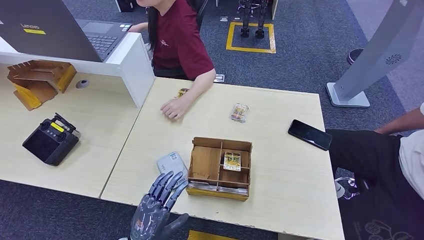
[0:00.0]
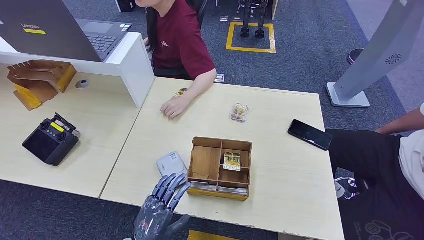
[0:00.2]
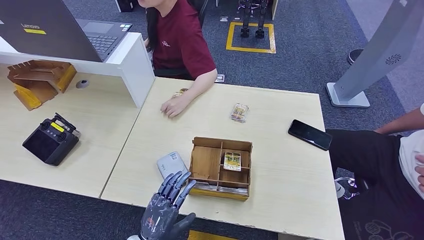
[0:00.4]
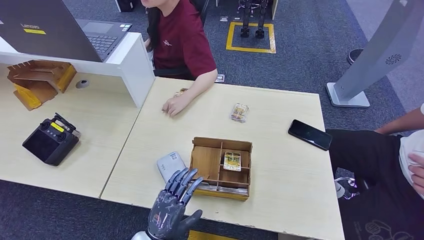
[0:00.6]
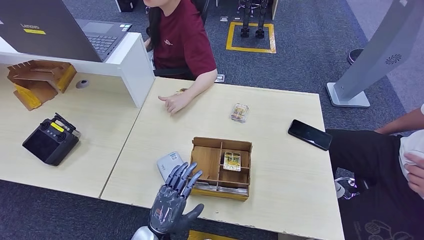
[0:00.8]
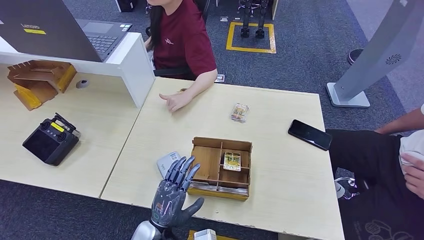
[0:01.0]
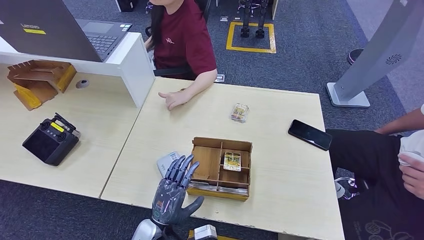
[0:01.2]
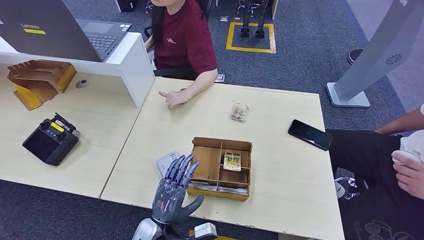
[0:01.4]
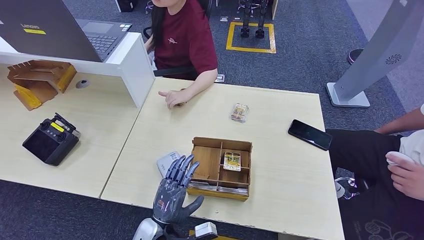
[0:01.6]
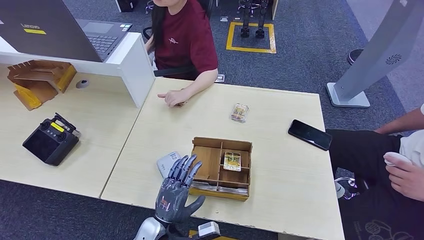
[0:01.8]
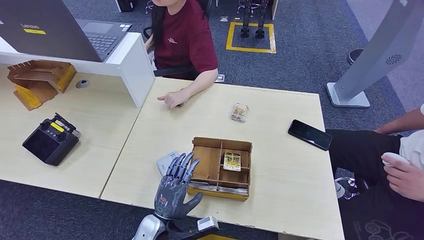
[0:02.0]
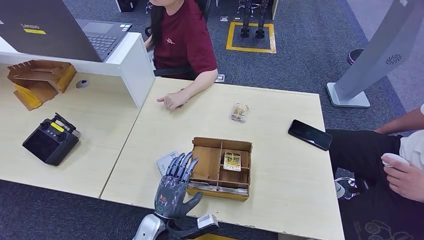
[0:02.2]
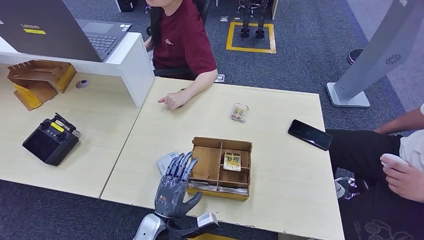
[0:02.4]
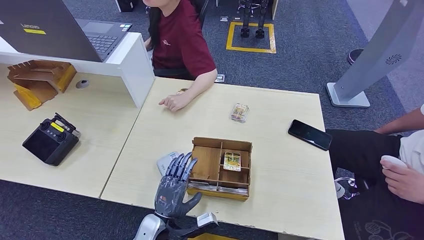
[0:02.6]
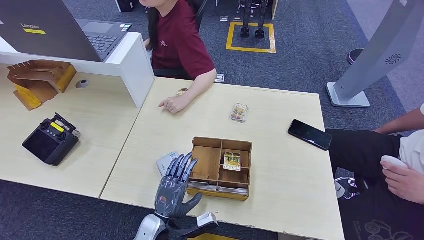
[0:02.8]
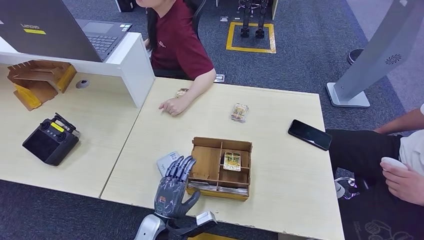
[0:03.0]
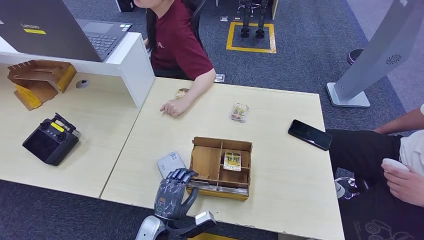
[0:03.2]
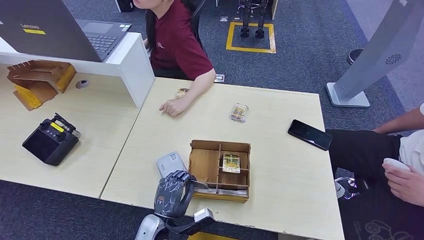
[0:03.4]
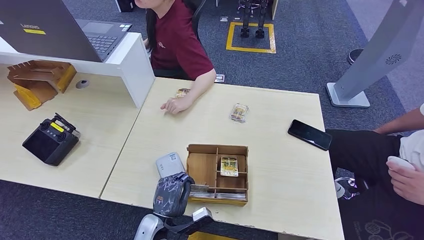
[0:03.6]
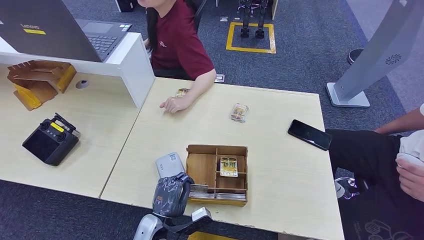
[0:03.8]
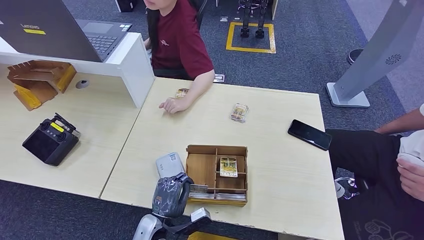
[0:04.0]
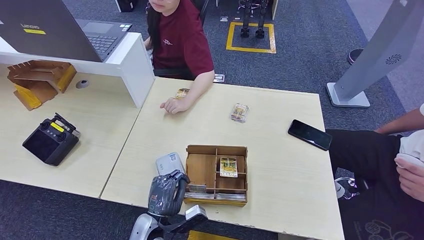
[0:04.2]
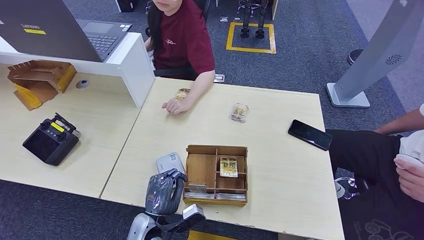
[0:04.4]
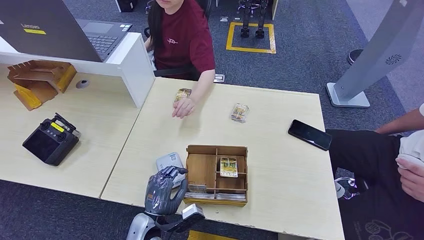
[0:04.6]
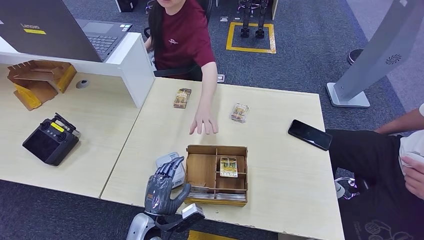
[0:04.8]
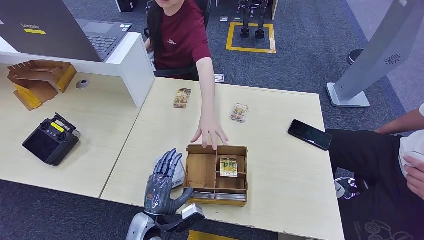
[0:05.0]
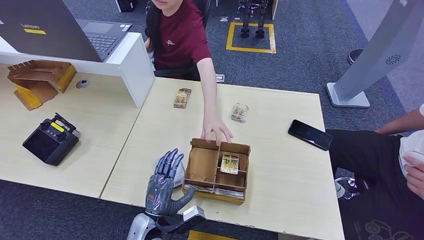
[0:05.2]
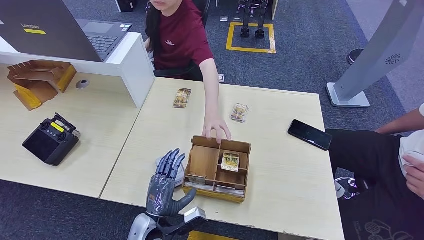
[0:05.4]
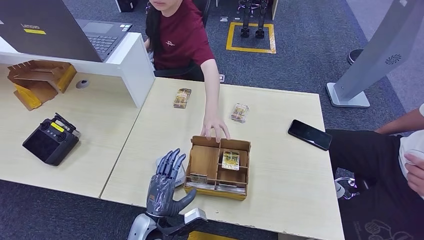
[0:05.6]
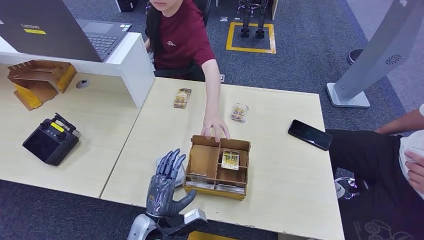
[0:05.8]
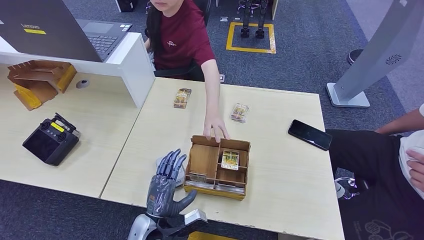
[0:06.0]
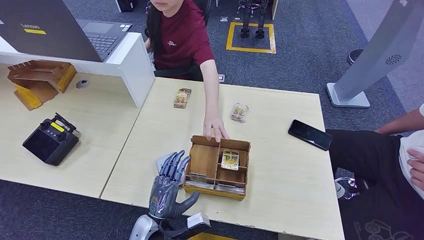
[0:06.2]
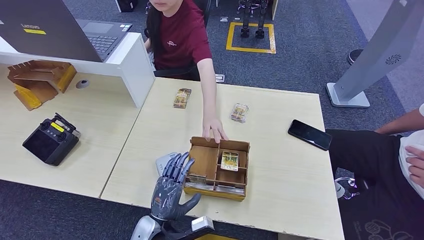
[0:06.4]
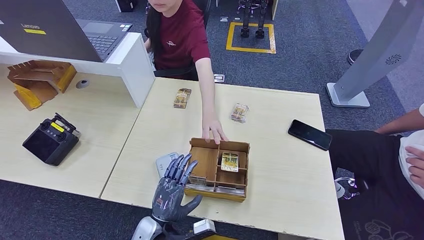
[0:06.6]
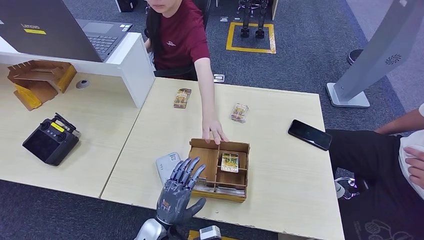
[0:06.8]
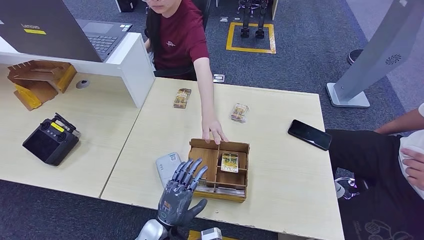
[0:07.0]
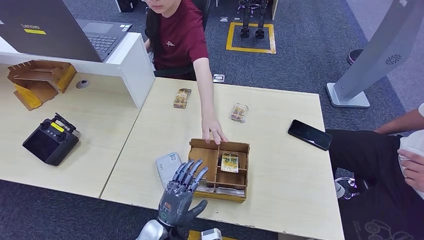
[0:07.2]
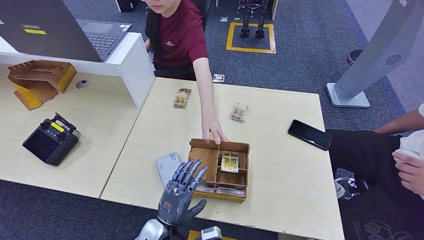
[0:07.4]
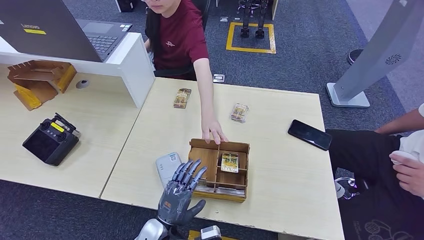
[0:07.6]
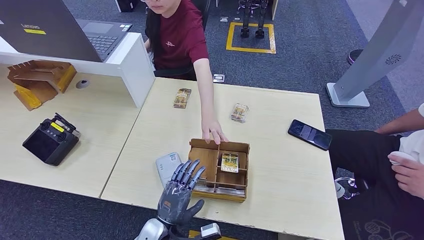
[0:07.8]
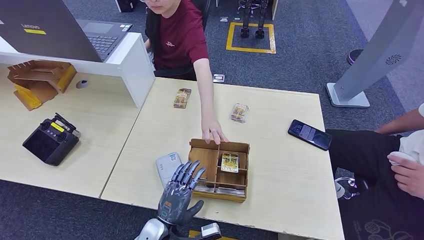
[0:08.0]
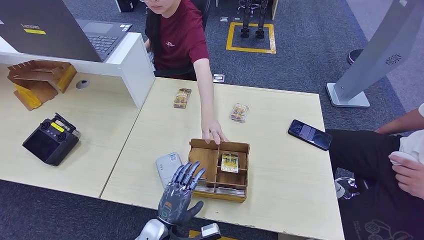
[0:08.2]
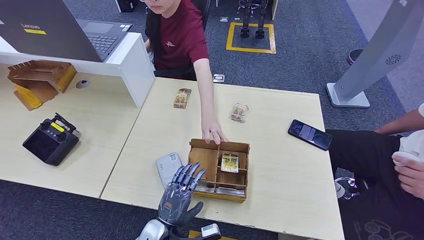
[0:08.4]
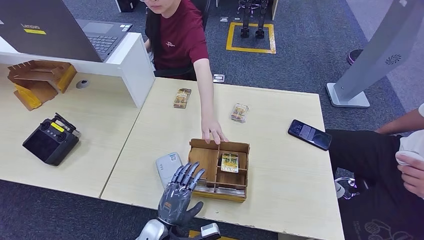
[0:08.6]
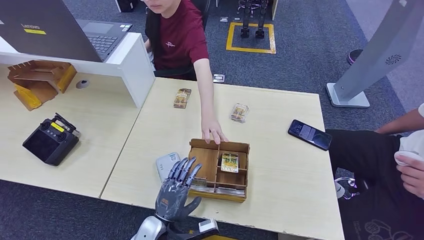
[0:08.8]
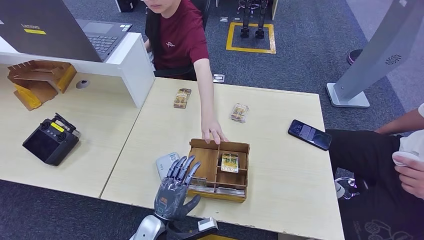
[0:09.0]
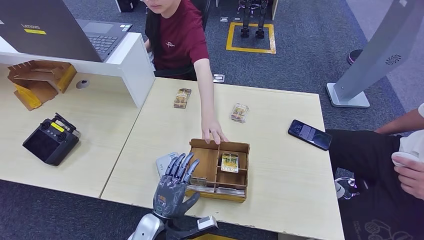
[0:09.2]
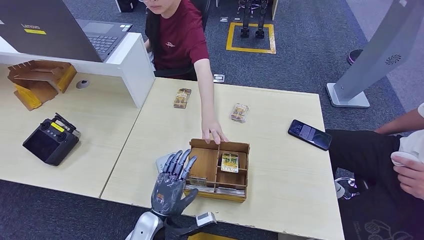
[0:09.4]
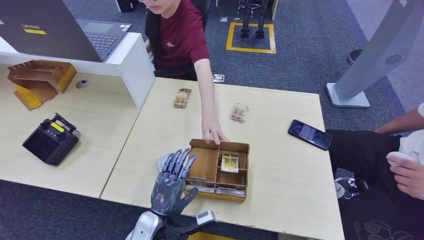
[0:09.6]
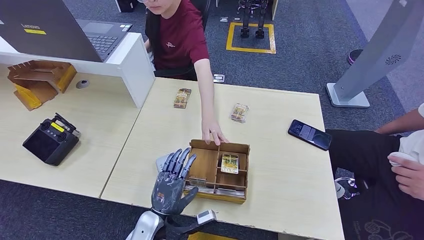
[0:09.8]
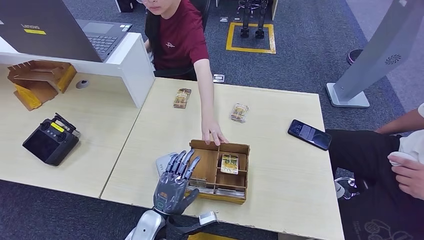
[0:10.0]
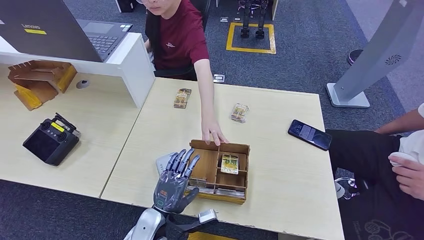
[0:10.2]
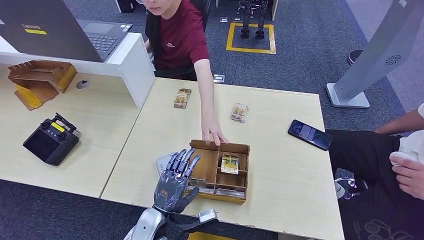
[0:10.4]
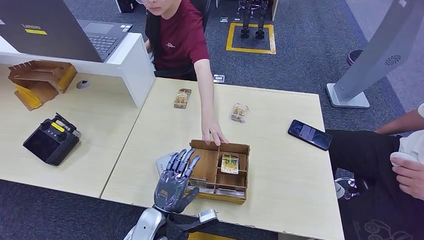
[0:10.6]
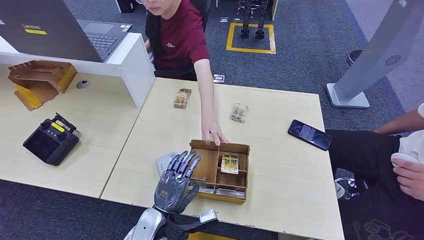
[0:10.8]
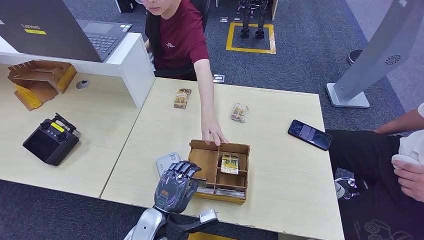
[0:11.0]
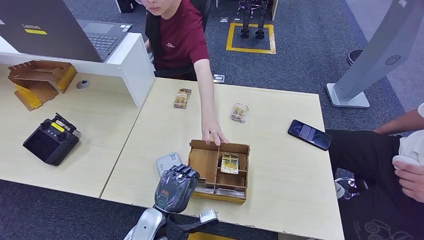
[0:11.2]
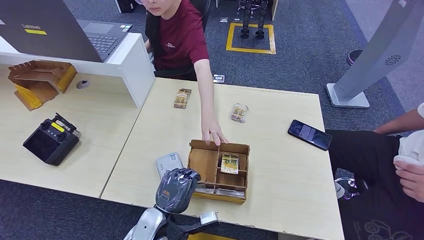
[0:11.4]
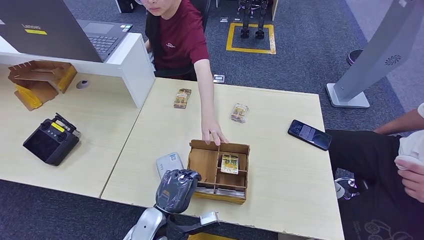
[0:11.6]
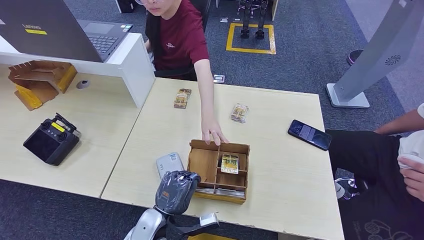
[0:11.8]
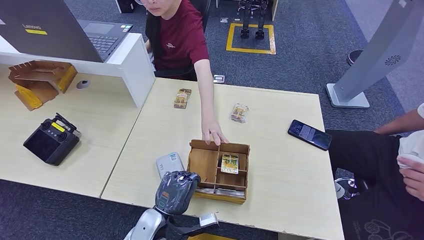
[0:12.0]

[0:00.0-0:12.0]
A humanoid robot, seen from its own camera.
0:00.0 to 0:01.6: The left hand is displaced forward by approximately 5 cm.
0:01.6 to 0:10.4: The hands stay close to where they were, moving slightly.
0:10.4 to 0:12.0: Both hands stay put.

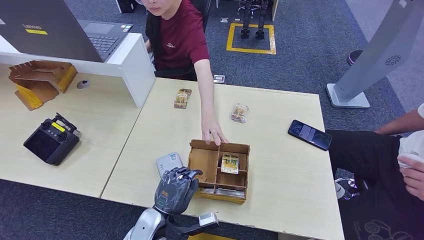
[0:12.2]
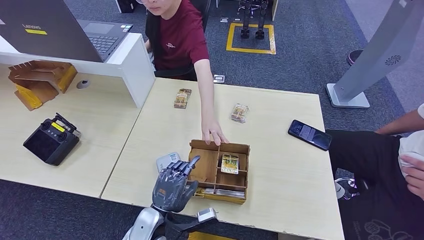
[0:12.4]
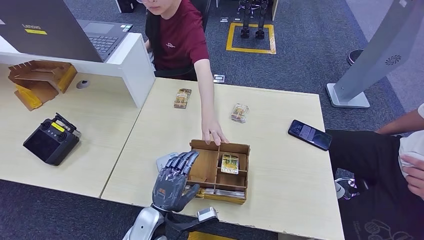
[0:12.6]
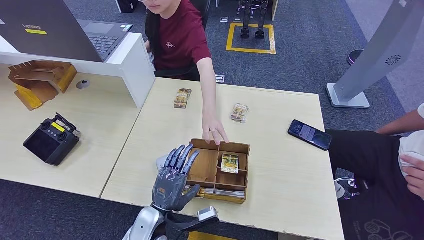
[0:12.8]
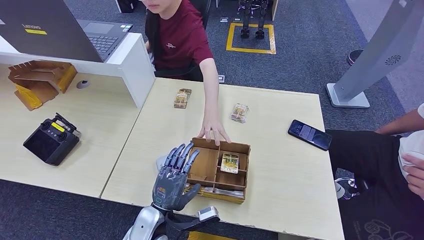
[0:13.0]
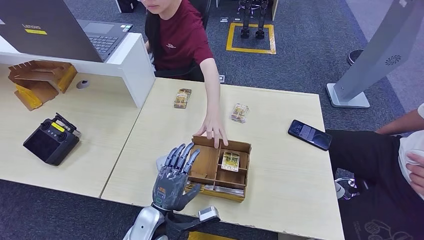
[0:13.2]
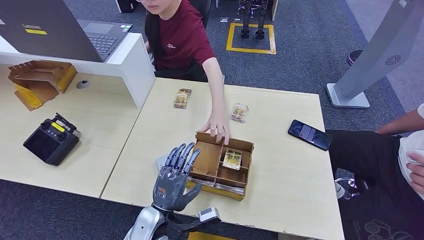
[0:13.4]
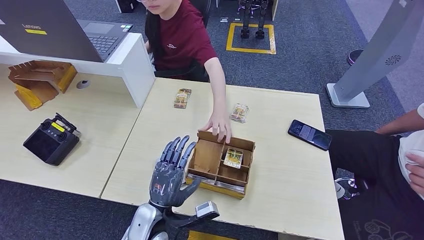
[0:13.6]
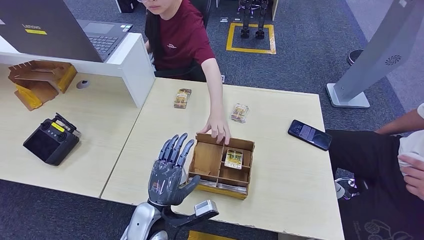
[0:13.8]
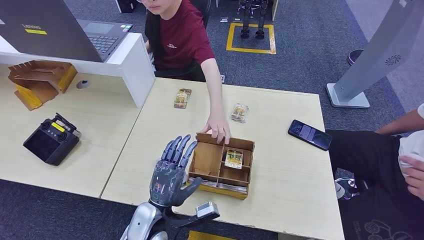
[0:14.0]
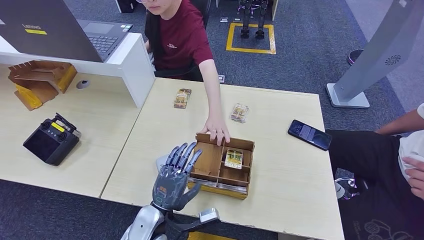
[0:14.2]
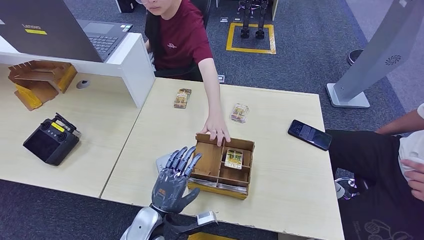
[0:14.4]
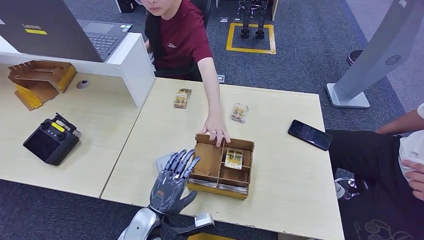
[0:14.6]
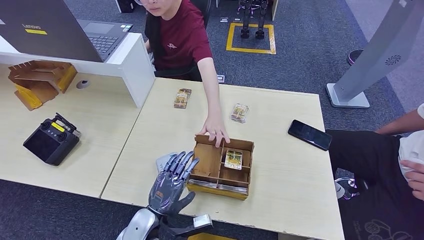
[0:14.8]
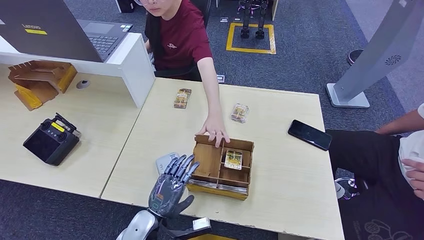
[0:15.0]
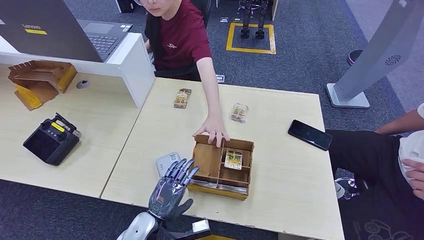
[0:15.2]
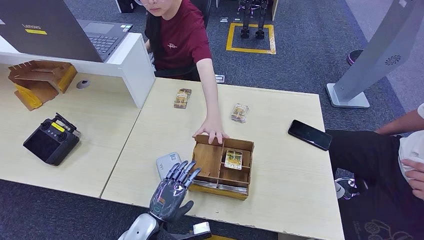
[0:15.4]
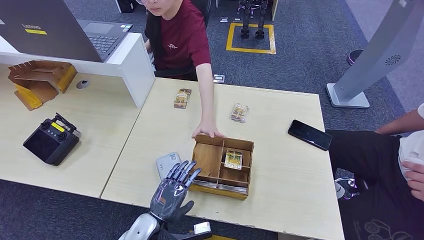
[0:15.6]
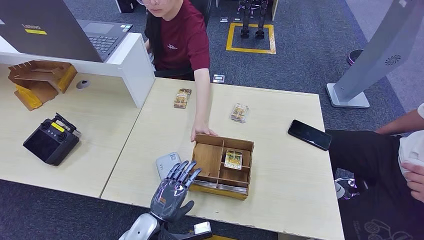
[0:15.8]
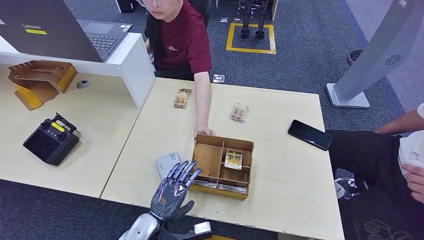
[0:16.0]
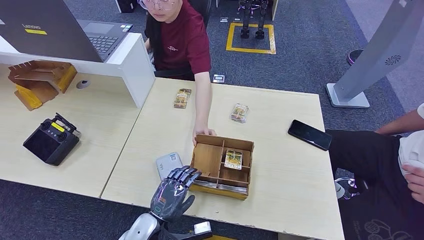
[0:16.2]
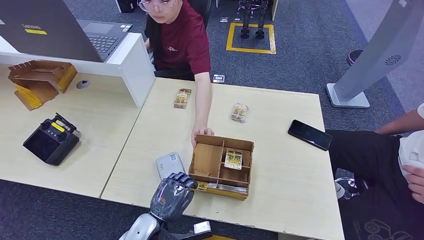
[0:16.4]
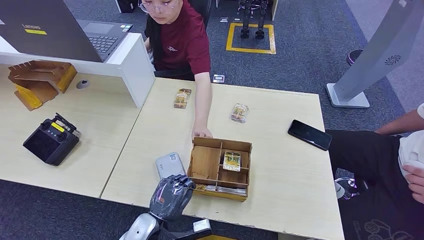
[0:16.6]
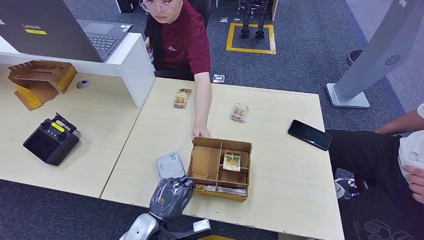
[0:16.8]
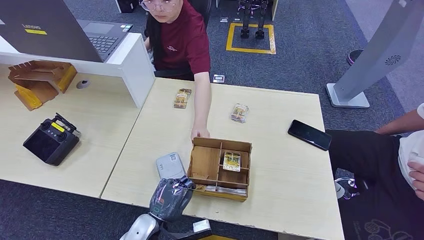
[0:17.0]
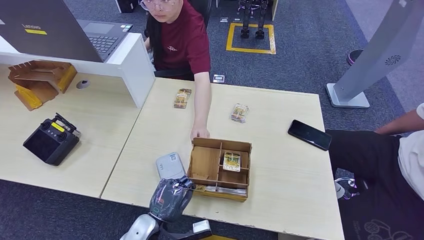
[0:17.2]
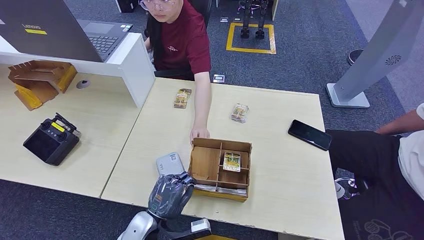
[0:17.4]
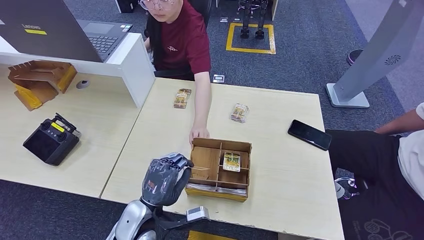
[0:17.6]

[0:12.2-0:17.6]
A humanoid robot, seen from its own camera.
0:12.2 to 0:15.0: The hands stay close to where they were, moving slightly.
0:15.0 to 0:16.2: The two hands keep their place.
0:16.2 to 0:17.6: The left hand is displaced upward by roughly 5 cm.
